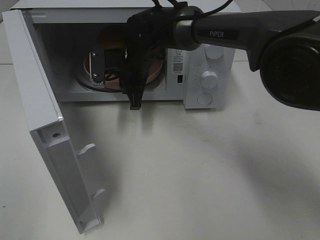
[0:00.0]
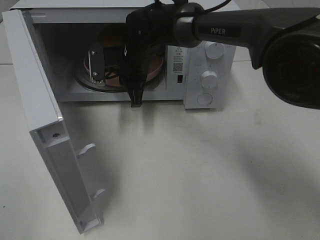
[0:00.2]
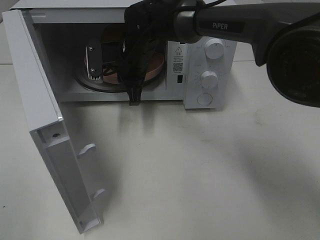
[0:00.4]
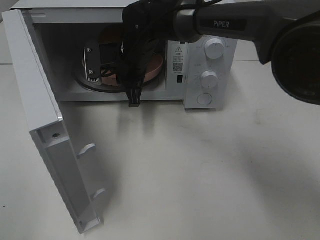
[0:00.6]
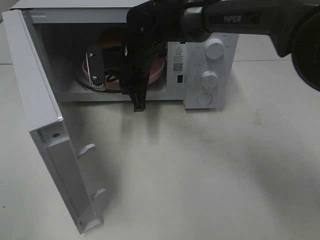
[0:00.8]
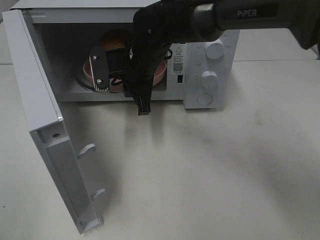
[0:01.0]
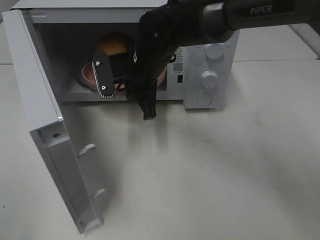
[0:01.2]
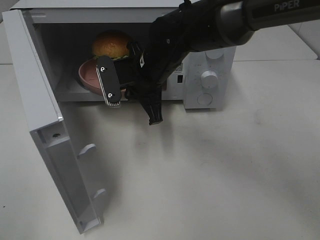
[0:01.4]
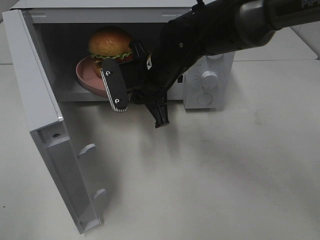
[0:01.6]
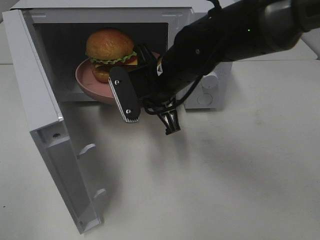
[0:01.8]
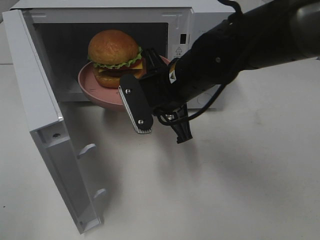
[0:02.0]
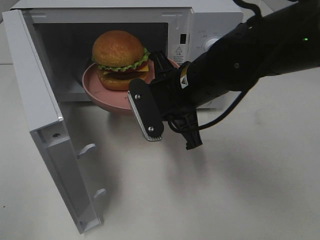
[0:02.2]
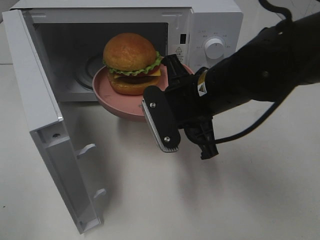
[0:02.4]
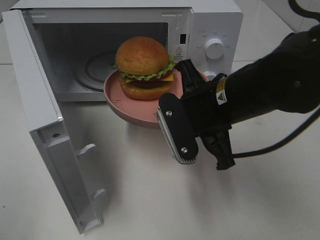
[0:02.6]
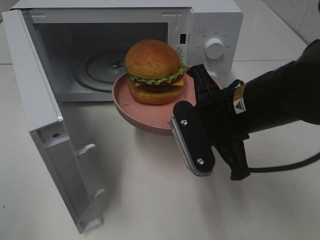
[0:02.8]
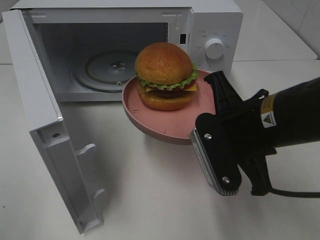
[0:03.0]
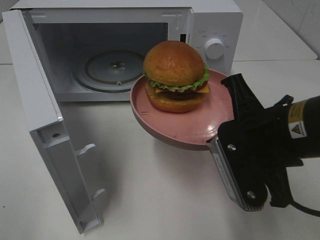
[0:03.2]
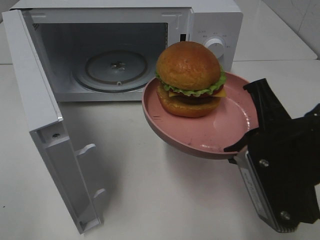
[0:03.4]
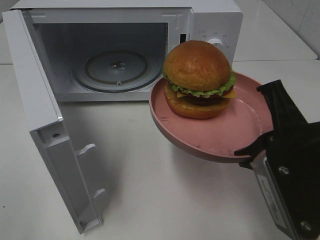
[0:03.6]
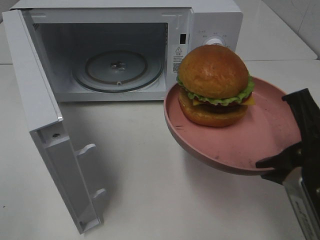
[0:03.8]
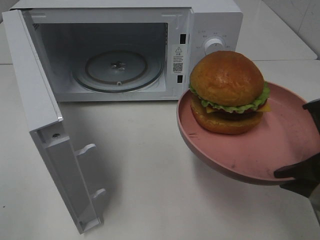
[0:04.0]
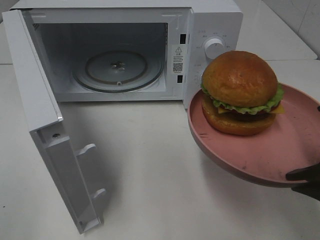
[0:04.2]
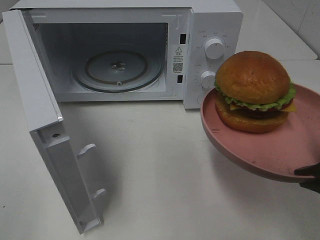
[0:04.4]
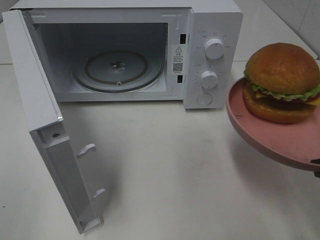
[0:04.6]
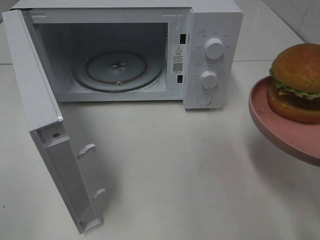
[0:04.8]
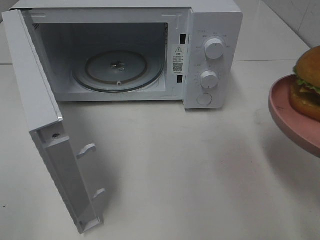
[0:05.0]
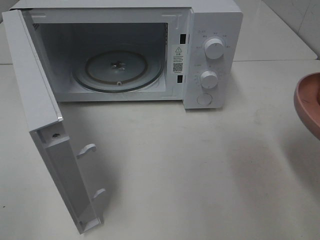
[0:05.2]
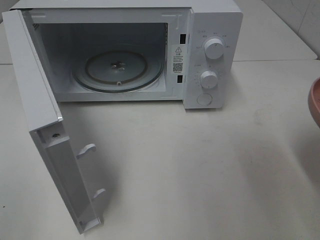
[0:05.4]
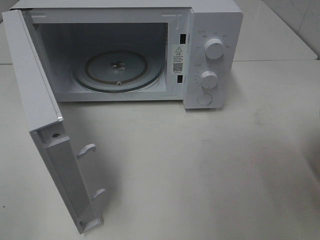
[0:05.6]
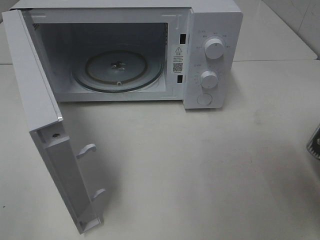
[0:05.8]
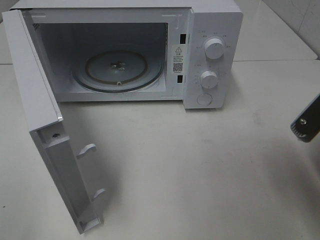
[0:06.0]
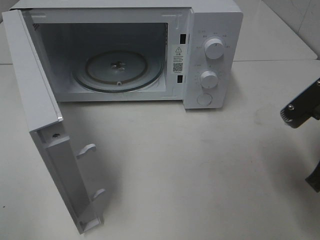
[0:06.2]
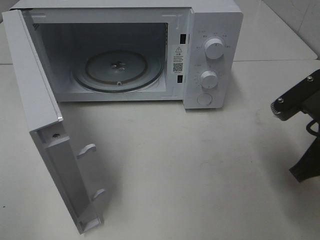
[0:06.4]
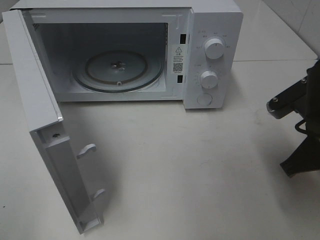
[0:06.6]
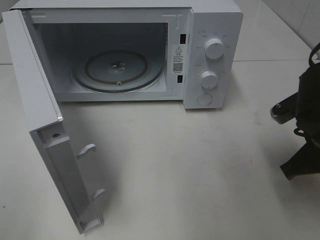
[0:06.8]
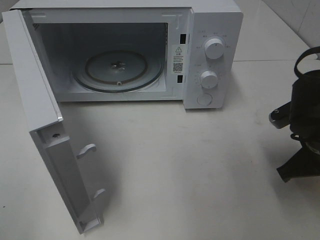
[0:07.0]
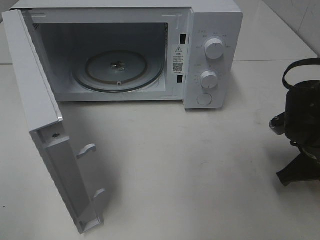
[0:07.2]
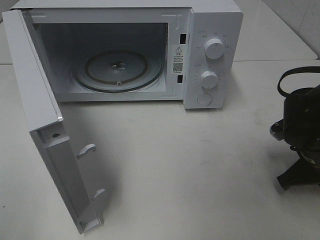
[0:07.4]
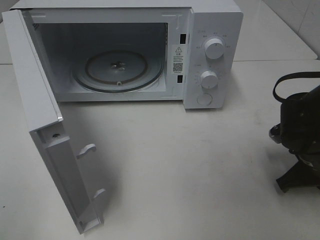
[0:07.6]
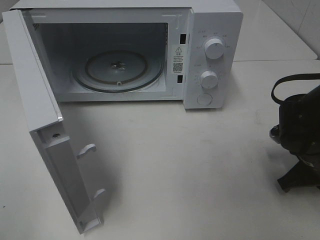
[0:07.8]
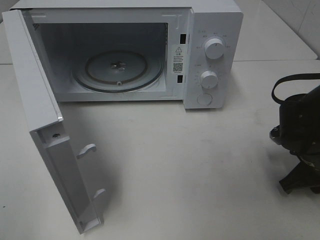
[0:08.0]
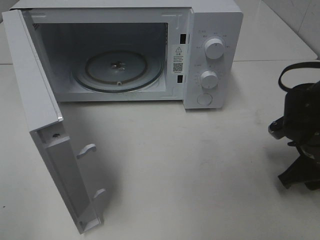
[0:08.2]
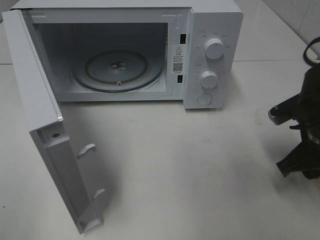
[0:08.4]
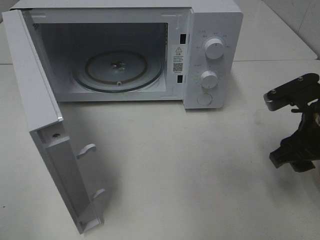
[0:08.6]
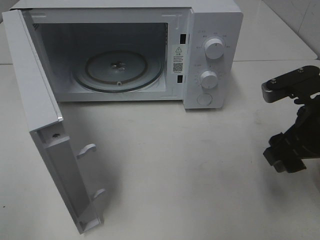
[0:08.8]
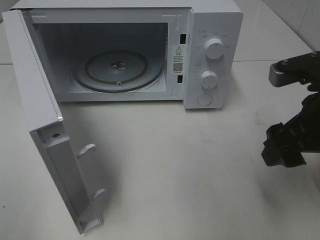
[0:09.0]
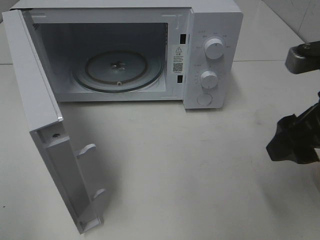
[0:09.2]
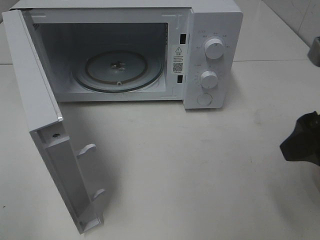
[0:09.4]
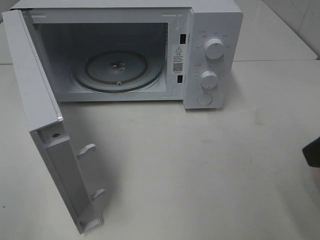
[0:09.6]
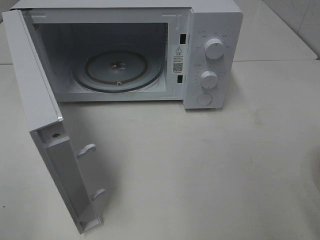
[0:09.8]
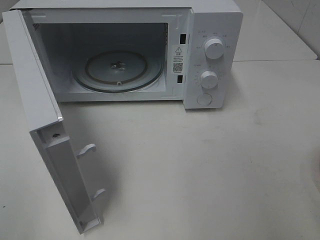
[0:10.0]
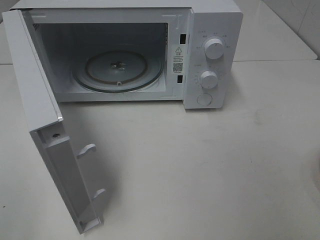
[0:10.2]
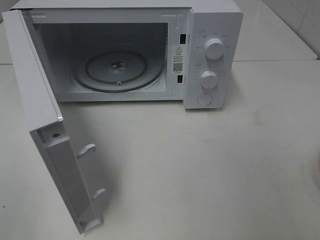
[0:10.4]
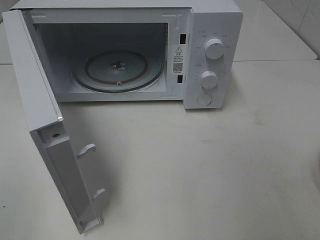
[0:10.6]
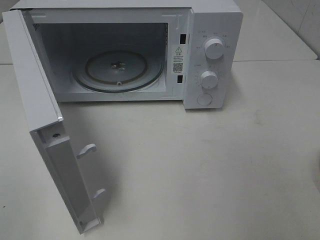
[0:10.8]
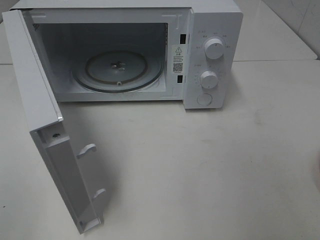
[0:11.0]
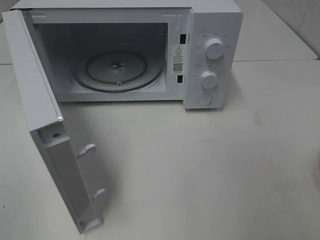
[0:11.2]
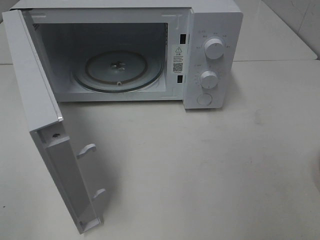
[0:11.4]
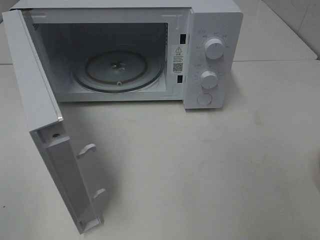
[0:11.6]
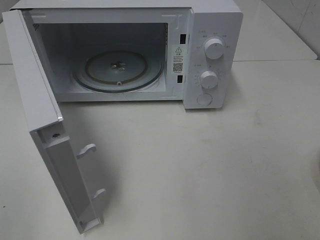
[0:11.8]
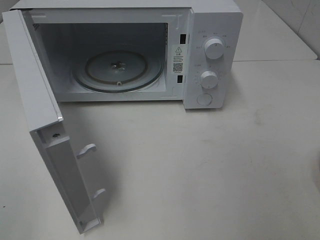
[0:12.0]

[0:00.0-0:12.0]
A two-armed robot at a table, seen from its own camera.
Task of the whole recording: Heat the burger.
Step, 0:00.2 to 0:08.4: Right hand: place the plate on the table.
0:00.0 to 0:01.6: The right gripper goes about 10 cm backward.
0:01.6 to 0:03.0: The right gripper shifts approximately 20 cm backward and to the right.
0:03.0 to 0:04.4: The right gripper heads to the right and backward, covering roughly 15 cm.
0:04.4 to 0:06.0: The right gripper shifts about 5 cm forward.
0:06.0 to 0:07.6: The right gripper is displaced downward and forward by some 15 cm.
0:07.6 to 0:09.0: The right gripper heads upward, covering some 15 cm, and opens up.
0:09.0 to 0:10.4: The right gripper shifts about 20 cm backward and to the right.

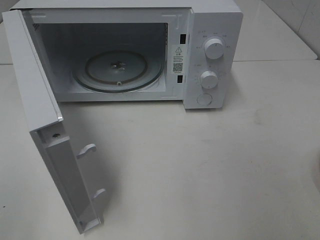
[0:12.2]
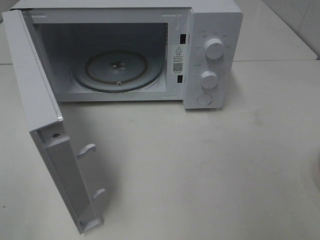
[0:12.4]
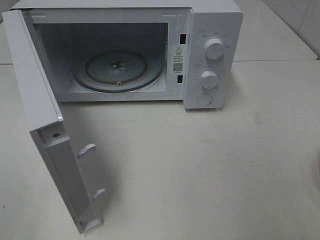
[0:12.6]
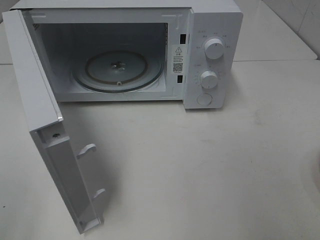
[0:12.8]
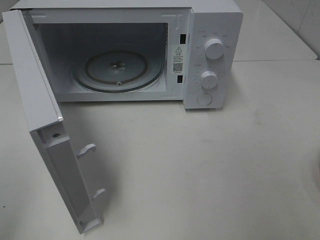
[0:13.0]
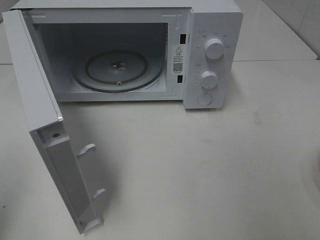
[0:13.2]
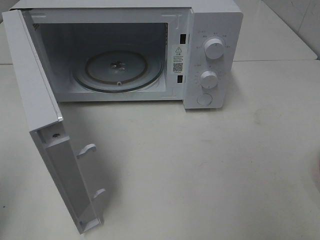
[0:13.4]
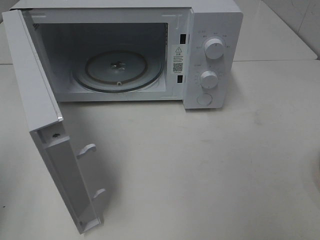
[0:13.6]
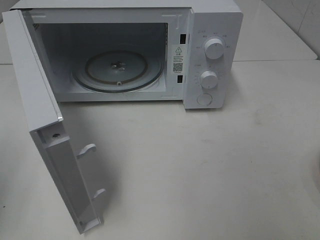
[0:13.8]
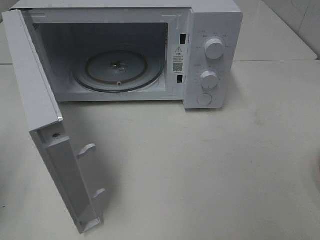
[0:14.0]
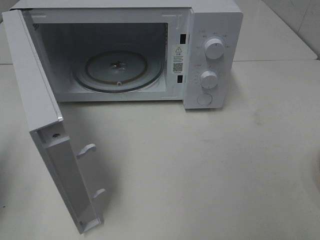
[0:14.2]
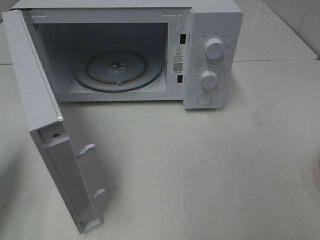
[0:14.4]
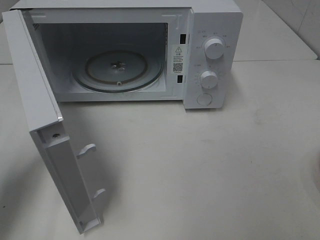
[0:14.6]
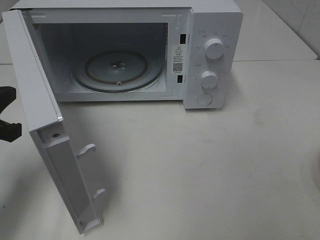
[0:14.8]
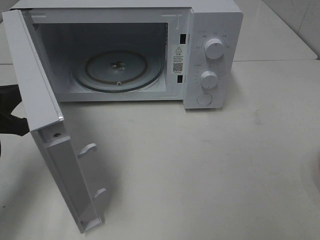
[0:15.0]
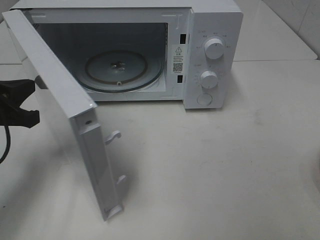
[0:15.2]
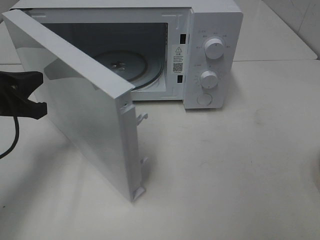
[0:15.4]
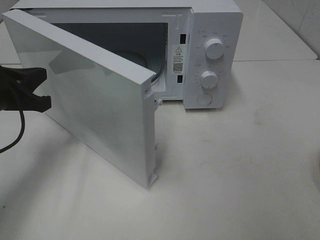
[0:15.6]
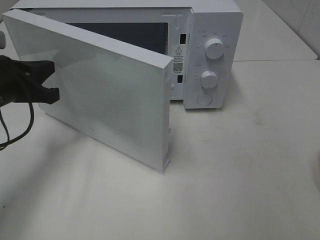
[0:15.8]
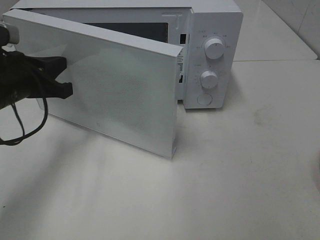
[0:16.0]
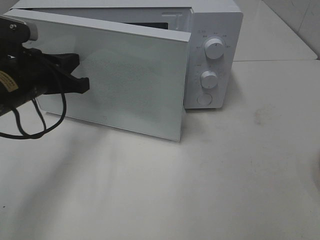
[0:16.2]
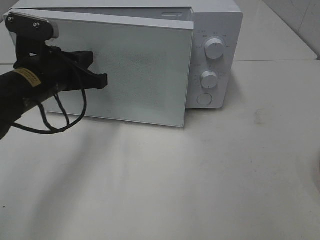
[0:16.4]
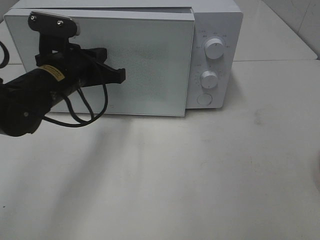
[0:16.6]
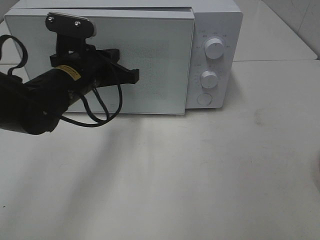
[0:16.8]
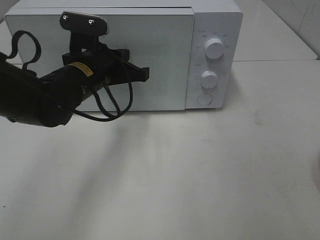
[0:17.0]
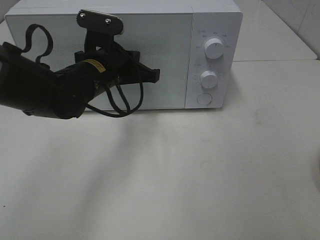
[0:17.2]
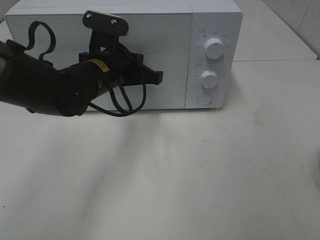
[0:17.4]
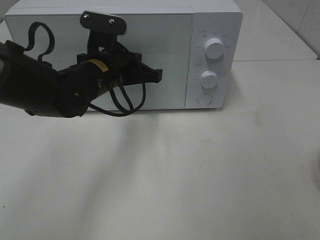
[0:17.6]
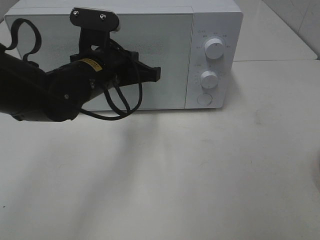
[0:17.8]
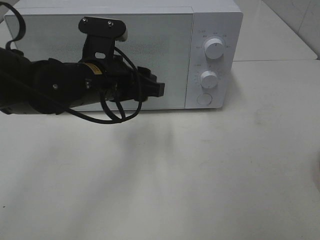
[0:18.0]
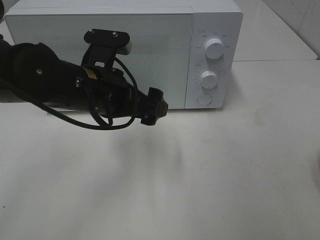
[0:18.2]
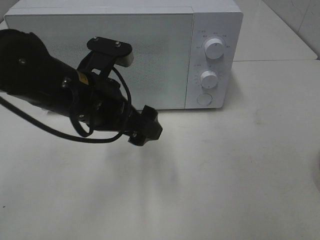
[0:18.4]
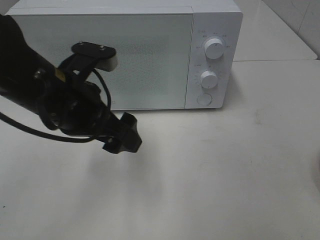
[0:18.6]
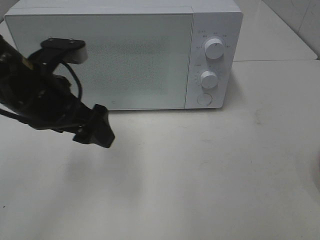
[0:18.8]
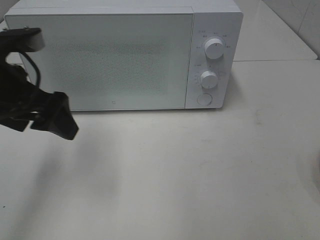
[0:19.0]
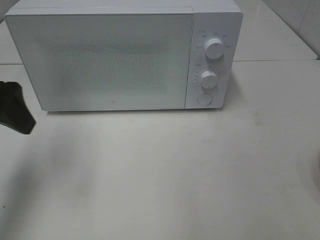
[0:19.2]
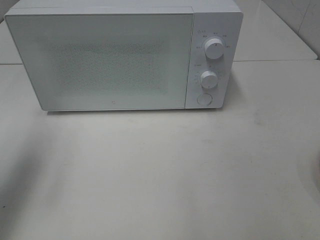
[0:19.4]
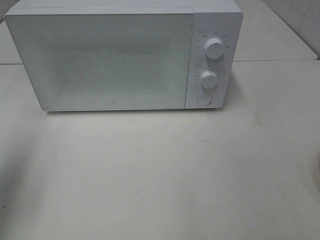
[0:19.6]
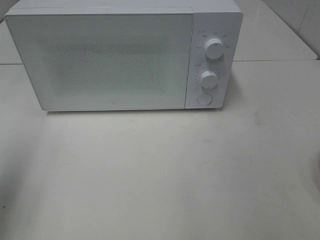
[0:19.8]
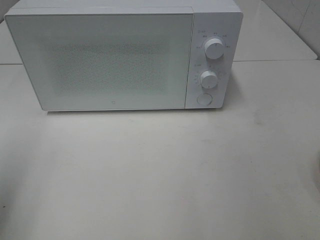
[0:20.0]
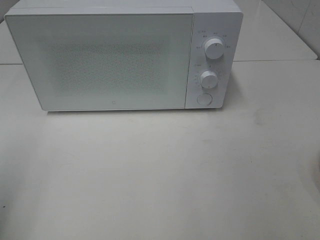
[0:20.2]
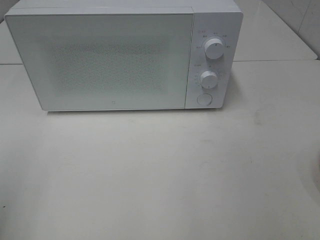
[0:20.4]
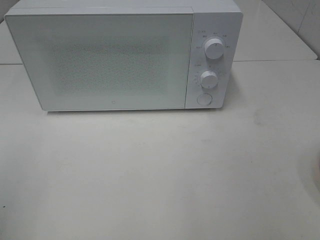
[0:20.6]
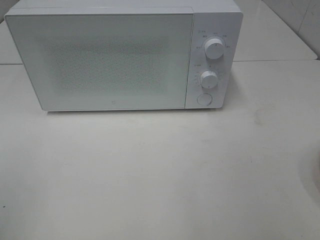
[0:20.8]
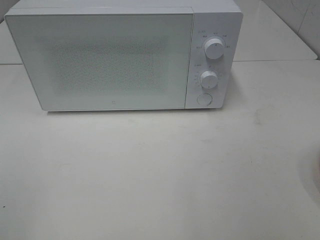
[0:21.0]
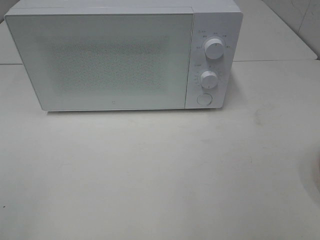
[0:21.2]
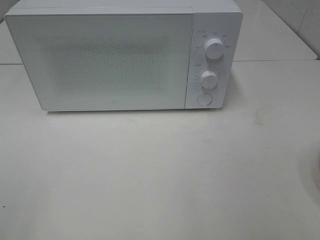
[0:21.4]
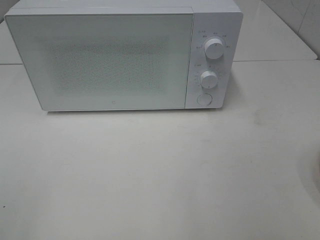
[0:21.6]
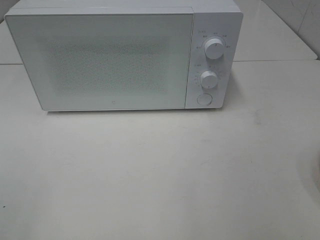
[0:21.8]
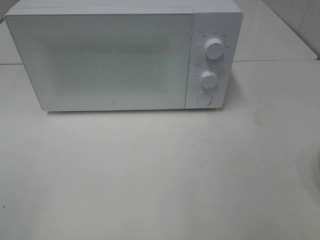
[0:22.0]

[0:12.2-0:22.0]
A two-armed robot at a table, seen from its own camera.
Task of the whole recording: Heat the burger.
Step, 0:12.2 to 0:18.0: Left hand: close the microwave door.
0:13.6 to 0:15.0: The left gripper travels forward, downward and to the right by about 15 cm.
0:15.0 to 0:16.4: The left gripper moves to the right and forward, roughly 15 cm.
0:16.4 to 0:17.8: The left gripper moves to the right, about 10 cm.
0:17.8 to 0:19.2: The left gripper shifts some 20 cm to the left, upward and backward, and opens up.
0:19.2 to 0:20.6: The left gripper heads backward, covering roughly 20 cm.
